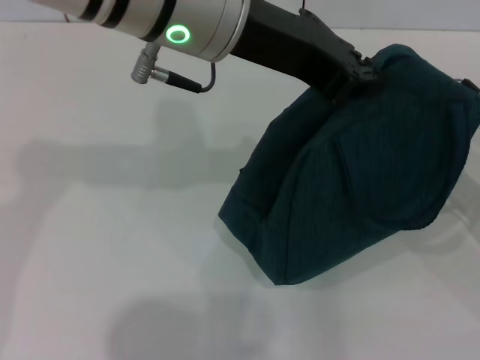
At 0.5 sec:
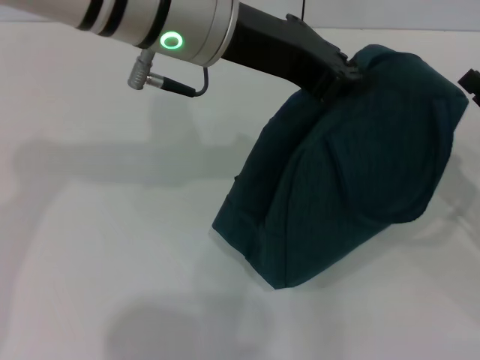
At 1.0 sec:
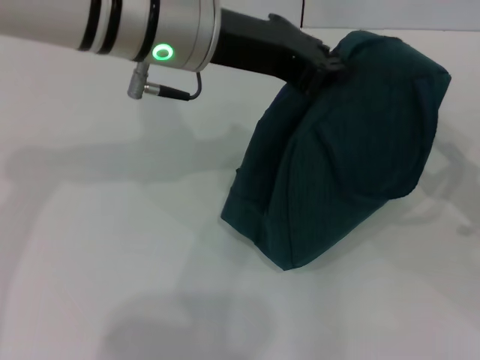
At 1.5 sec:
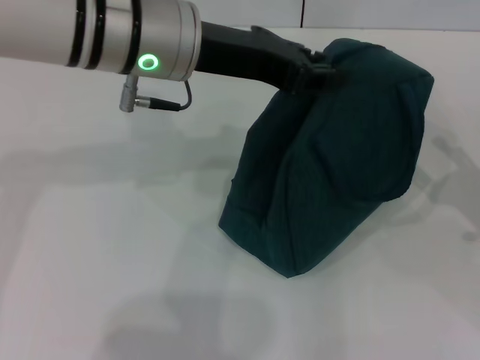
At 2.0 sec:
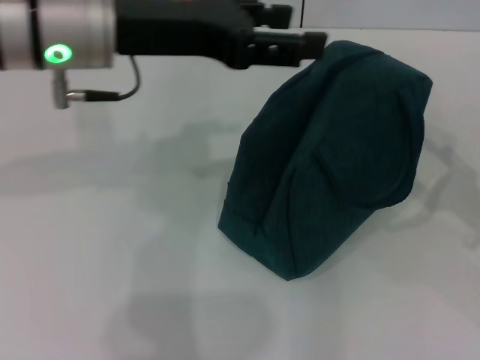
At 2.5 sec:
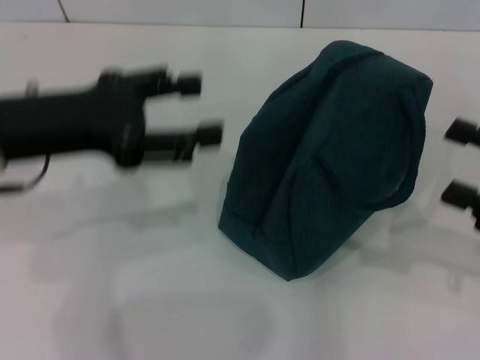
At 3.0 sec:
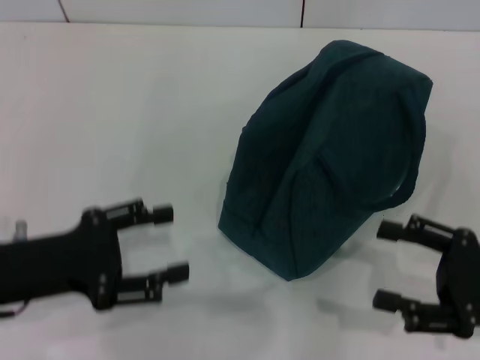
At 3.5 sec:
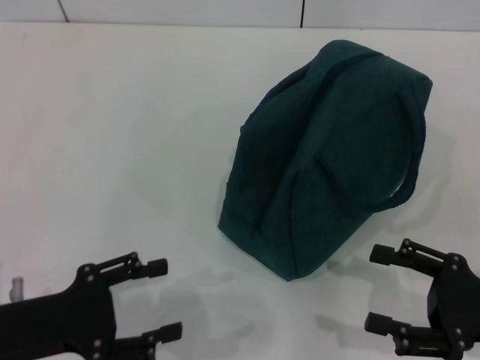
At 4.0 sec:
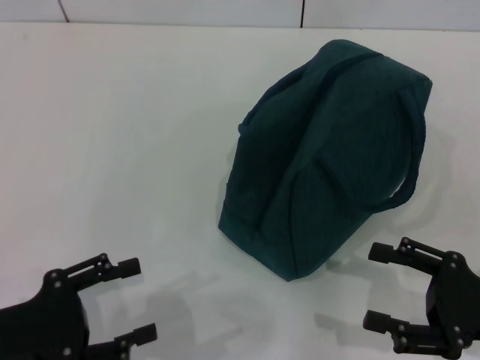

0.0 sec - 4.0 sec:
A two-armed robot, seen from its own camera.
Step, 1.0 sec - 1.5 sec: Hold the lunch bag with your left hand.
0.0 sec - 2.0 sec: The left gripper travels to the left by roughly 10 cm, and opens up. Meanwhile the right gripper ends up roughly 5 cm from where it was, and opens its fingers.
2.0 sec - 4.0 sec: The right gripper moves to the left and backward, roughly 5 cm, while the left gripper shifts about 30 cm backward, downward and to the left.

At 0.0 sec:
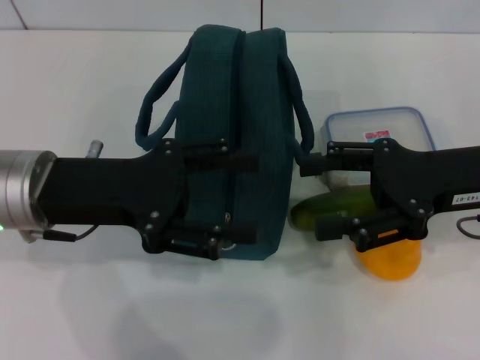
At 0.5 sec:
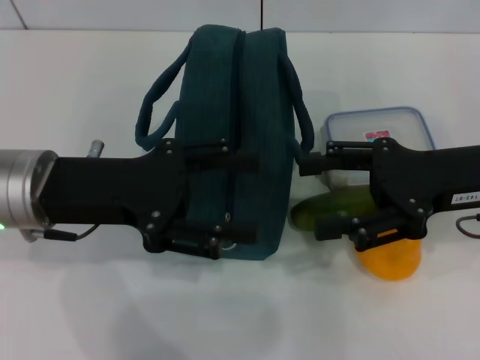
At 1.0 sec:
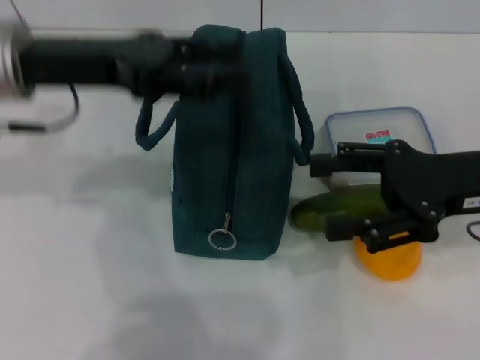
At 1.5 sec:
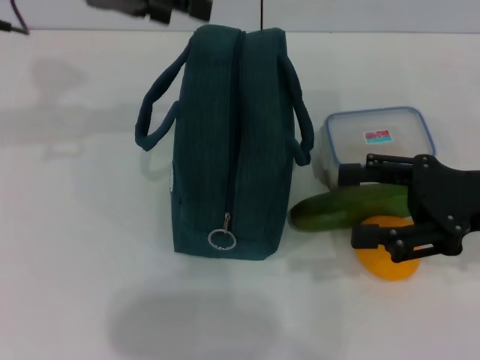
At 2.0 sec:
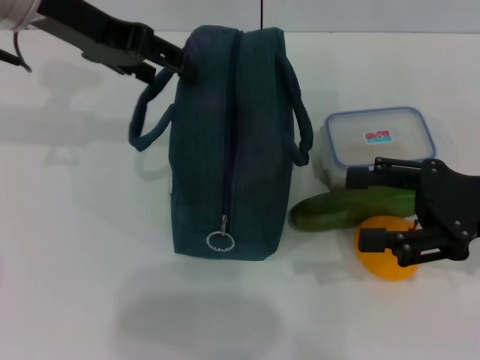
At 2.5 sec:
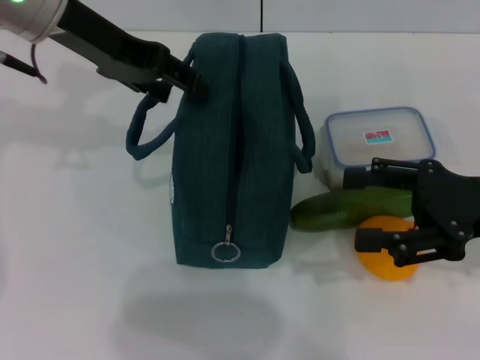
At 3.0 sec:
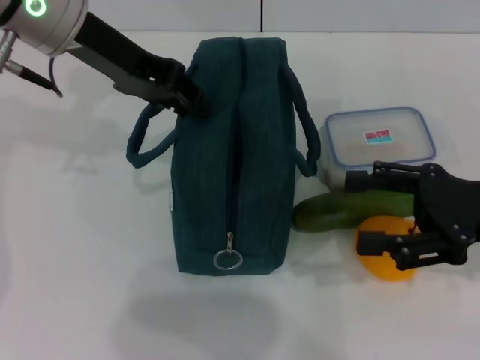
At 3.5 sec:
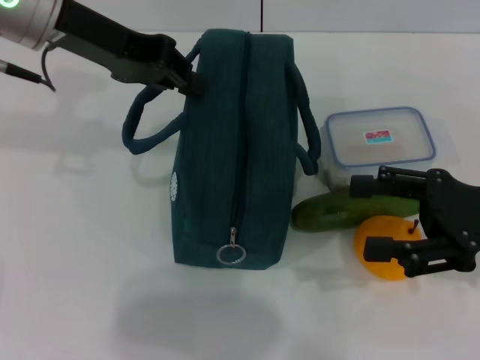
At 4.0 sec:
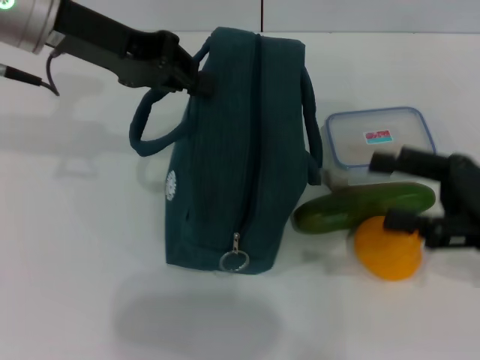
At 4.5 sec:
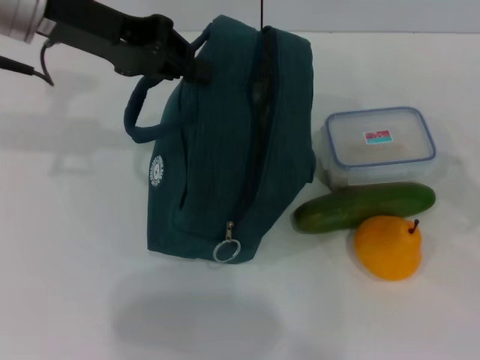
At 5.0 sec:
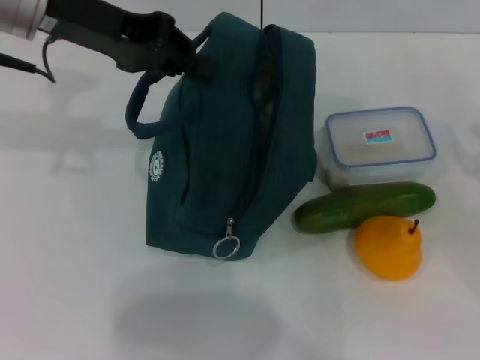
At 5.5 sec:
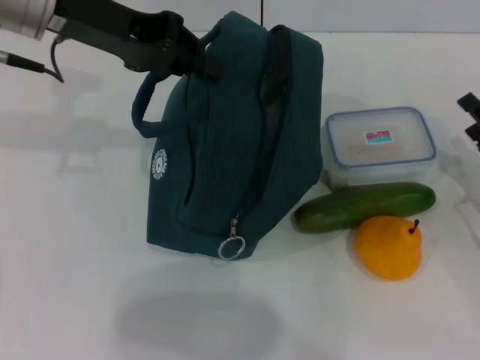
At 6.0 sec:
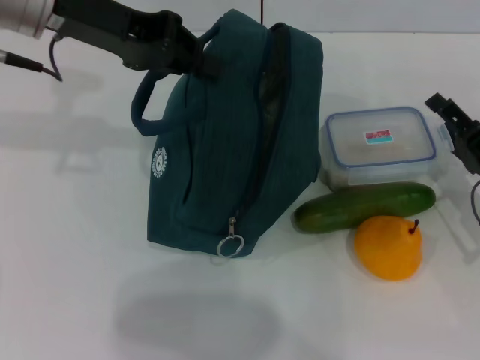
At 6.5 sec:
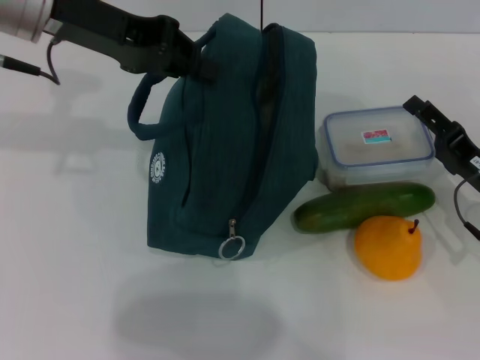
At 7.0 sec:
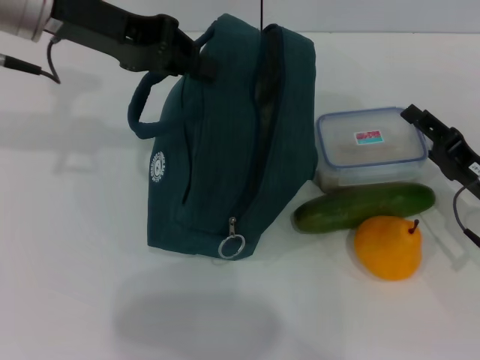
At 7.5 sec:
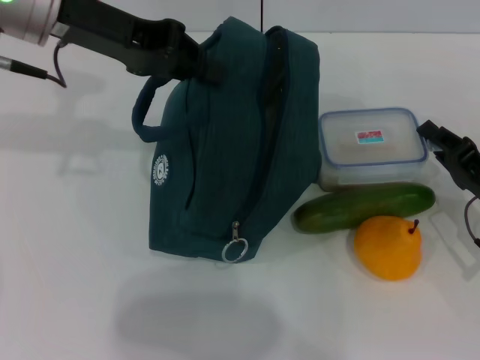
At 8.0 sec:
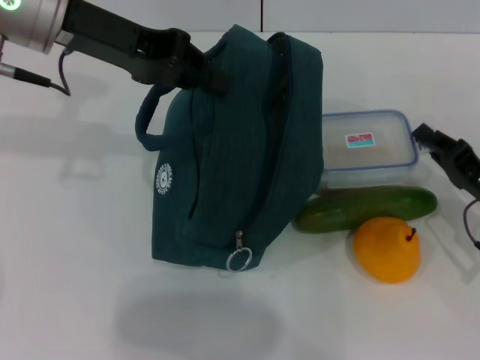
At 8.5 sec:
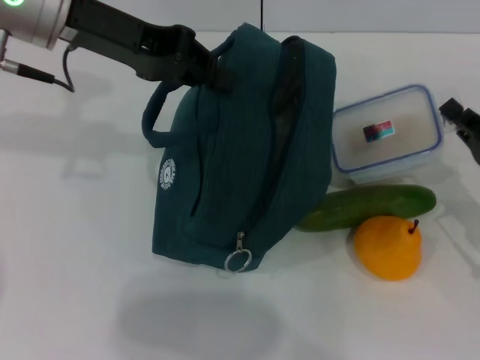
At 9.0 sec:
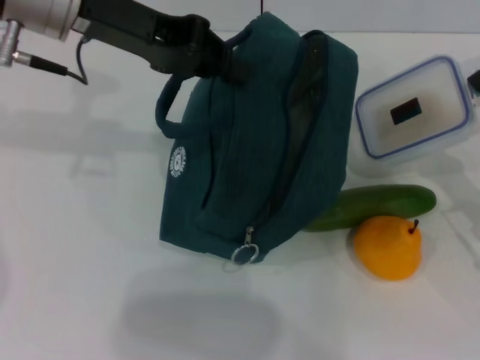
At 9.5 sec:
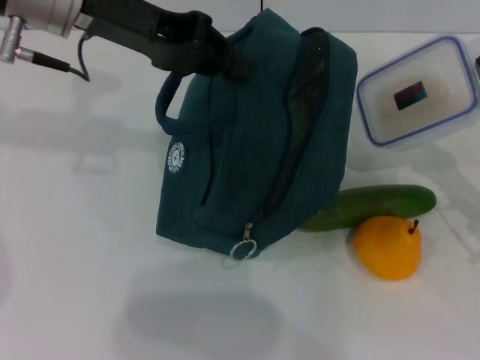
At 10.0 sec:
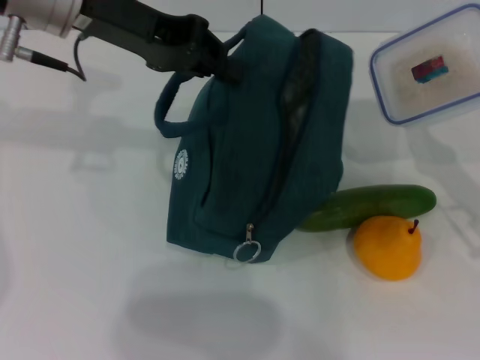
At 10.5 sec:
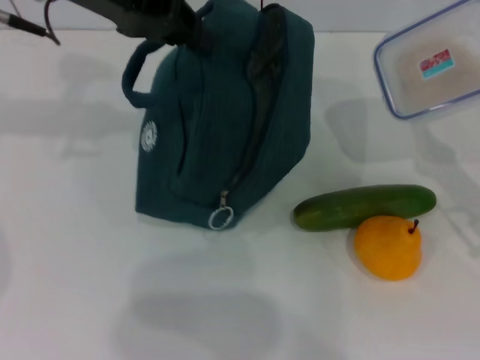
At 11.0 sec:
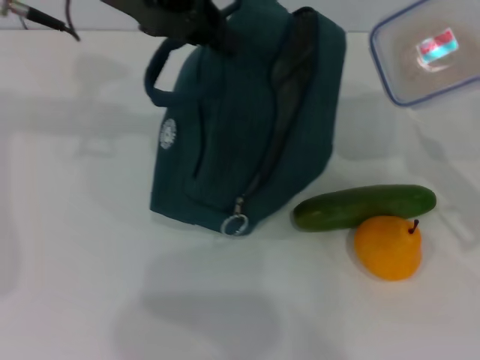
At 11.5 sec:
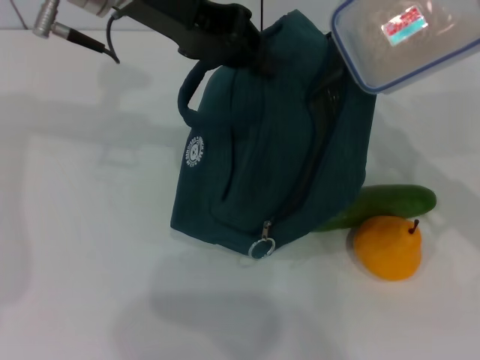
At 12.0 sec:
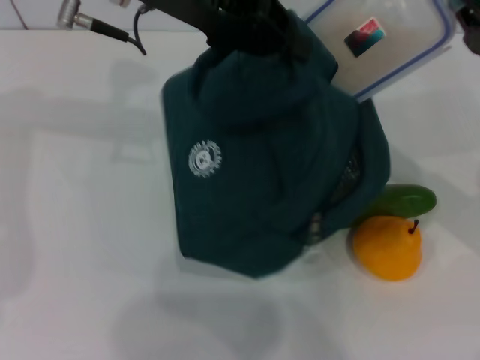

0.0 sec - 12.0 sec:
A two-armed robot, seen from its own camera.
Step, 0.0 sec - 3.5 sec: Hold the lunch bag with your left hand.
Step, 4.0 sec - 7.5 sec: Pick up the lunch box with your right hand.
0.0 sec - 2.0 sec: The left gripper moves forward and upward, about 15 cm.
2.0 sec - 4.0 sec: The left gripper closes up.
4.0 sec - 6.0 sec: The right gripper heads downward, covering some 10 cm.
6.0 sec - 8.0 sec: The right gripper closes its fingers.
8.0 sec - 10.0 sec: The right gripper shifts about 5 cm upward.
10.0 sec - 12.0 sec: The right gripper goes some 5 cm to the left; the left gripper changes place by approximately 5 cm.

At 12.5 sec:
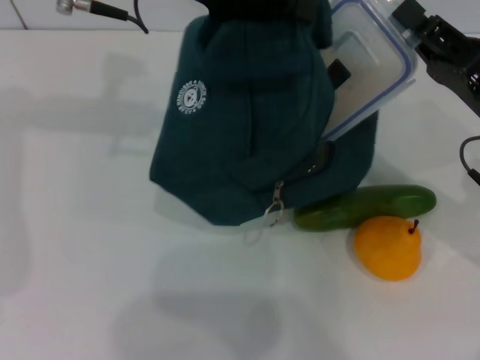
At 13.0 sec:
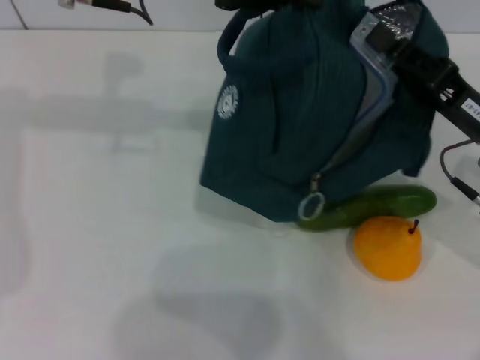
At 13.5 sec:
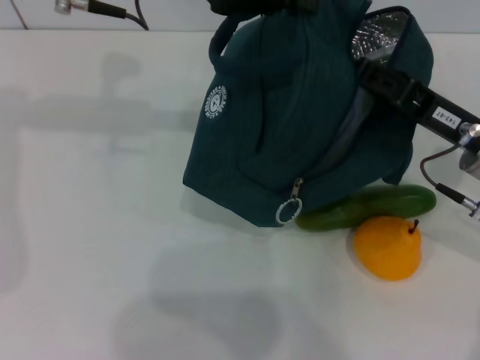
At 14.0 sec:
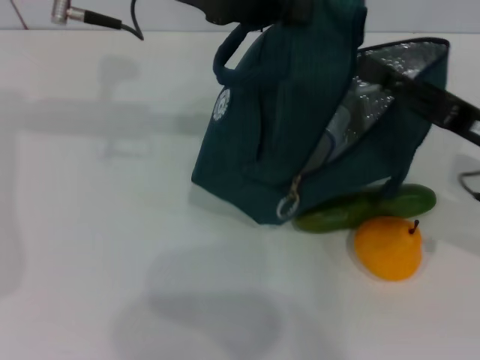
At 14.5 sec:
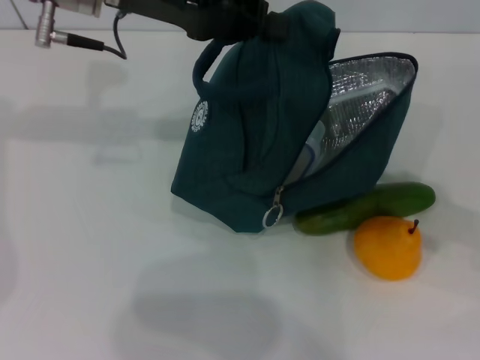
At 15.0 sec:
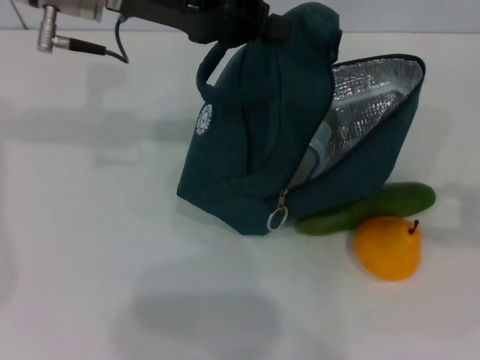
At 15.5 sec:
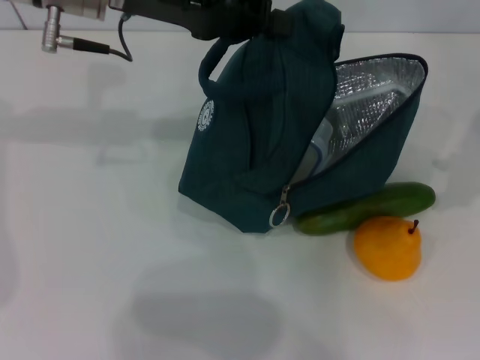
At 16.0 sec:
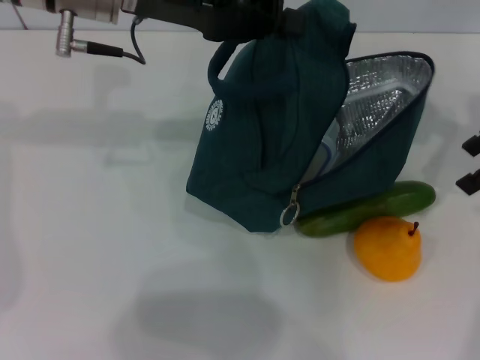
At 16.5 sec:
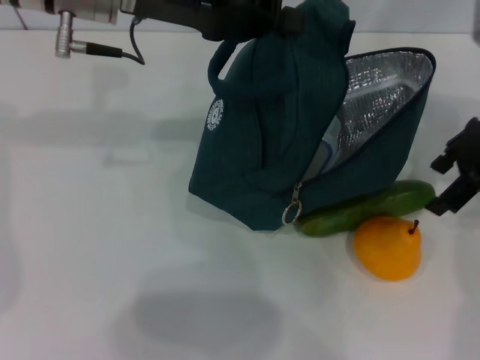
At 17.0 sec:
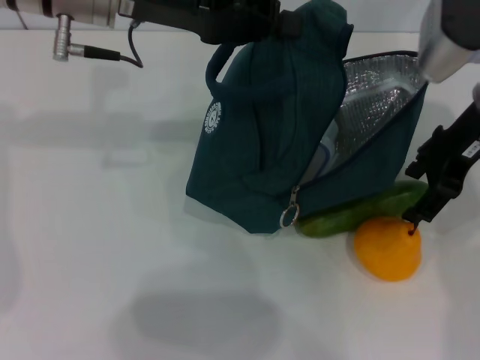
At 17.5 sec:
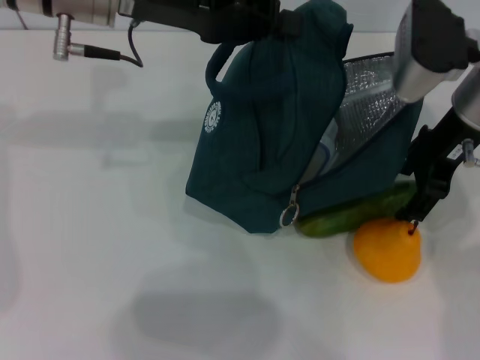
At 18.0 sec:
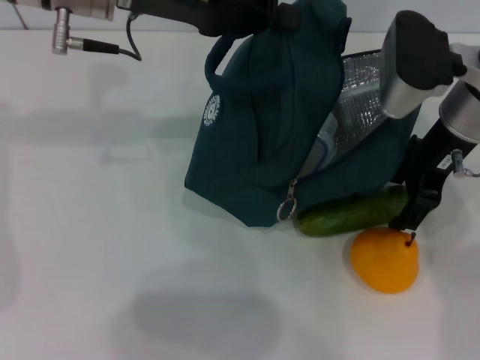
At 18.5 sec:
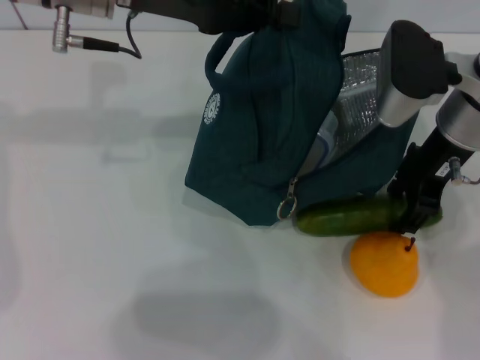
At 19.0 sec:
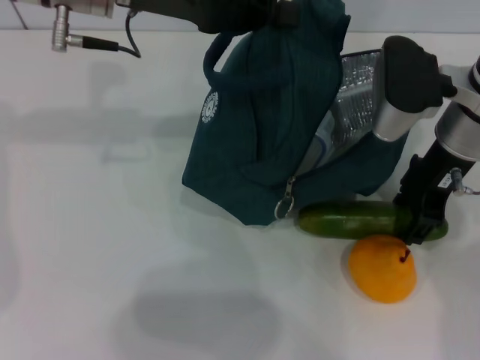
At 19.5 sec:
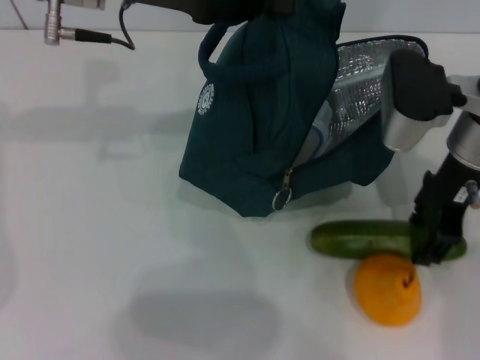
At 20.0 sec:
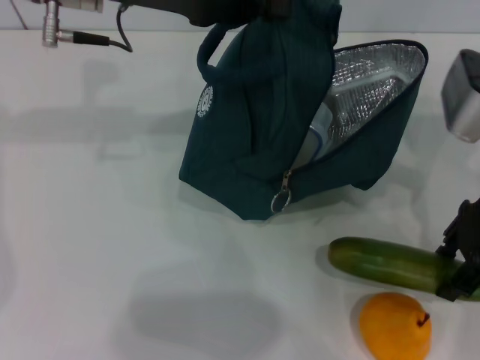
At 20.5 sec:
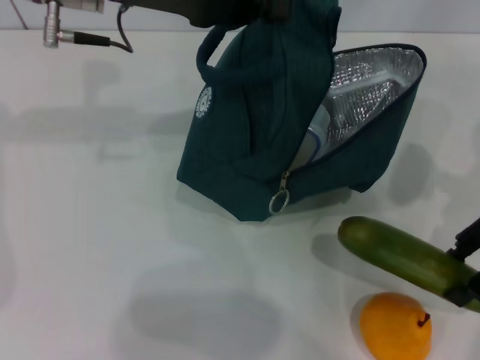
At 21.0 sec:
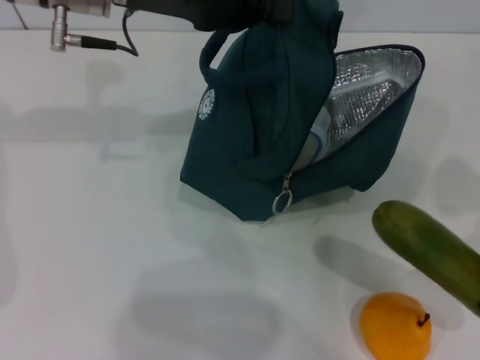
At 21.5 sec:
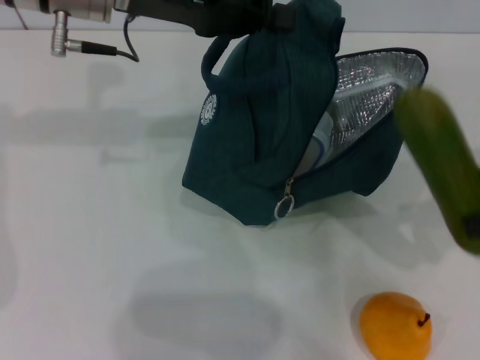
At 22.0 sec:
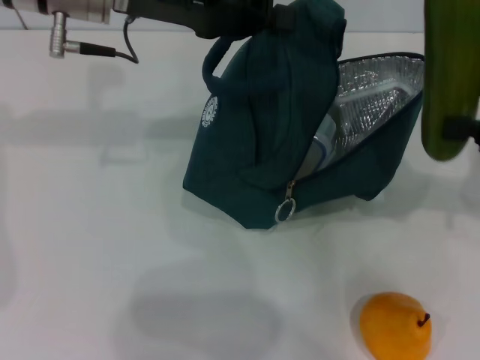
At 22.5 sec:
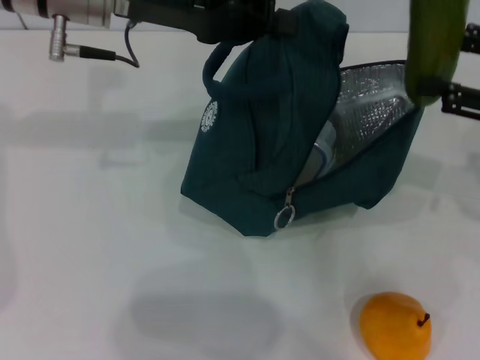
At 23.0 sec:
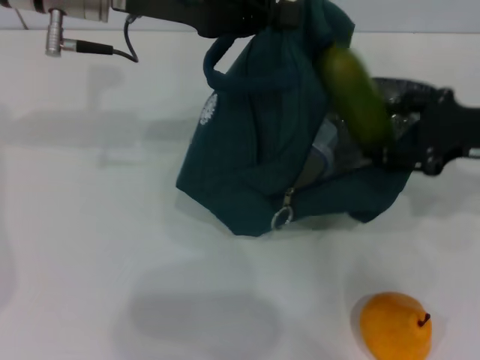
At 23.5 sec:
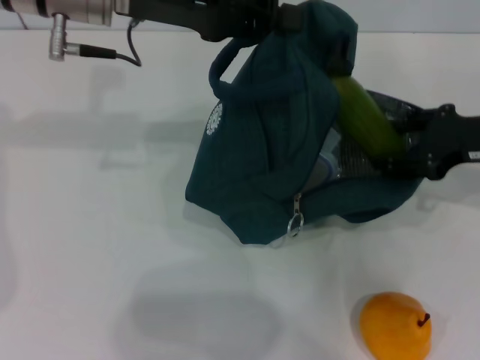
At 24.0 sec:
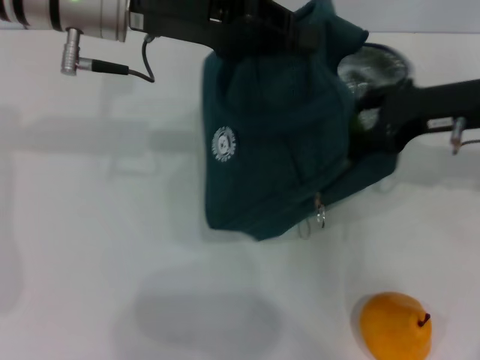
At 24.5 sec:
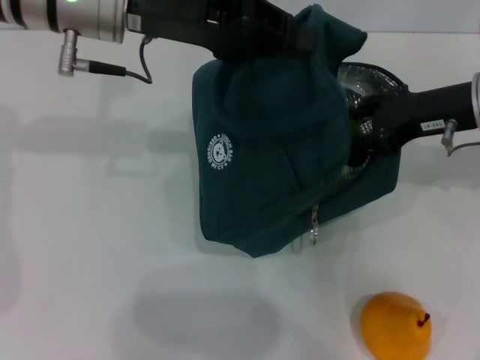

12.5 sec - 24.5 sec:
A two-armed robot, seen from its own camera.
Step, 14.0 sec - 19.0 sec: Pick up the cucumber with your right hand.
12.5 sec - 14.5 sec: The right gripper shifts some 10 cm to the right, and opens.
14.5 sec - 16.5 sec: The right gripper moves forward and to the left, some 20 cm.
16.5 sec - 18.5 sec: The right gripper heads to the left, covering some 5 cm.
18.5 sec - 20.5 sec: The right gripper is displaced to the right by approximately 10 cm.
22.5 sec - 24.5 sec: The right gripper travels to the left and forward by about 10 cm.
